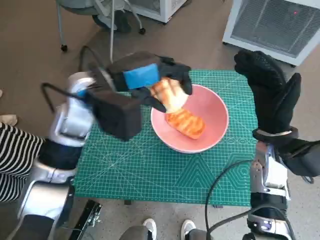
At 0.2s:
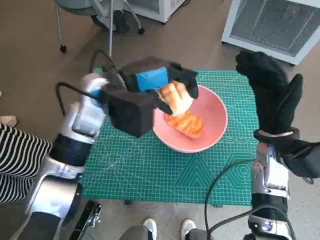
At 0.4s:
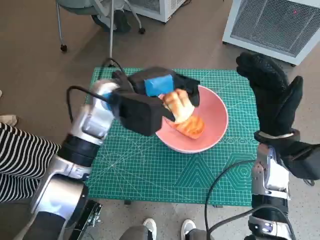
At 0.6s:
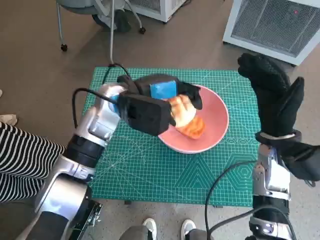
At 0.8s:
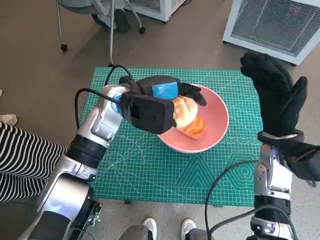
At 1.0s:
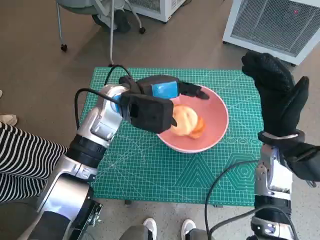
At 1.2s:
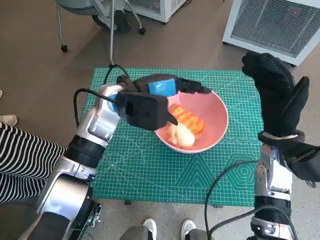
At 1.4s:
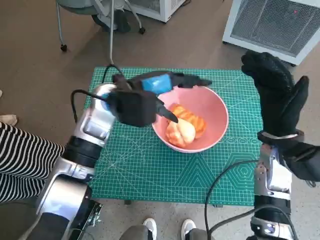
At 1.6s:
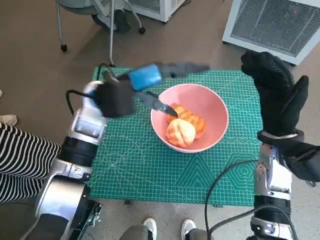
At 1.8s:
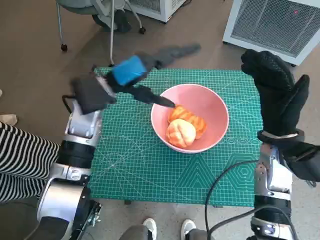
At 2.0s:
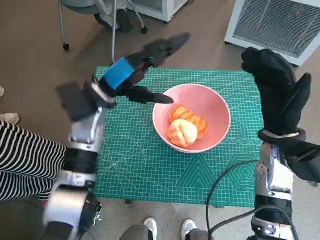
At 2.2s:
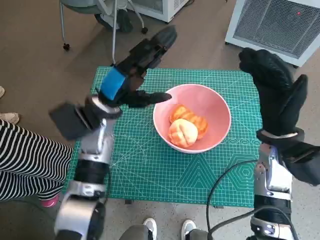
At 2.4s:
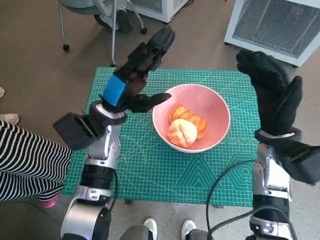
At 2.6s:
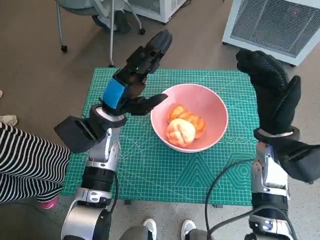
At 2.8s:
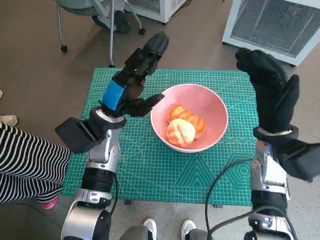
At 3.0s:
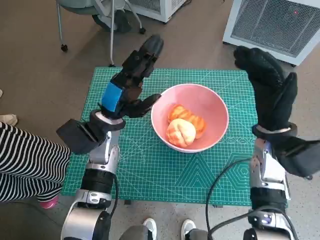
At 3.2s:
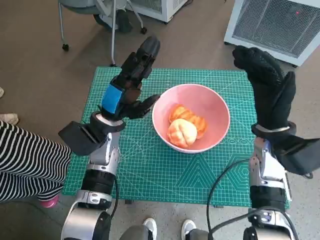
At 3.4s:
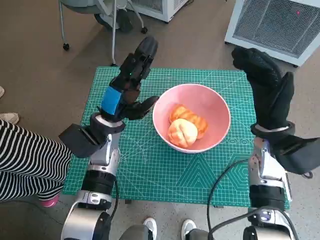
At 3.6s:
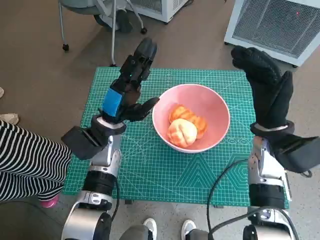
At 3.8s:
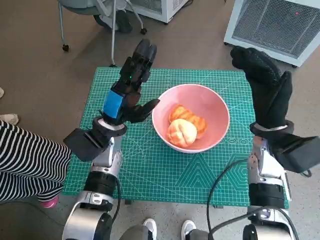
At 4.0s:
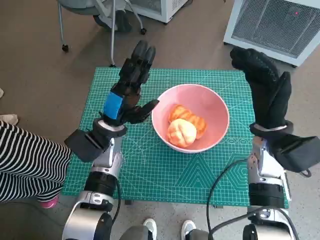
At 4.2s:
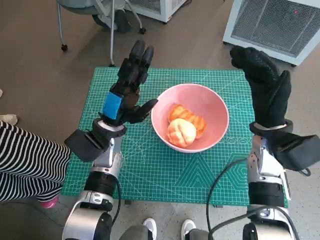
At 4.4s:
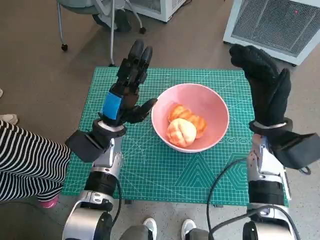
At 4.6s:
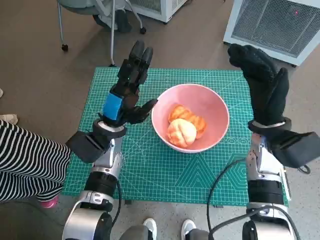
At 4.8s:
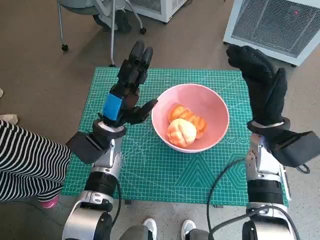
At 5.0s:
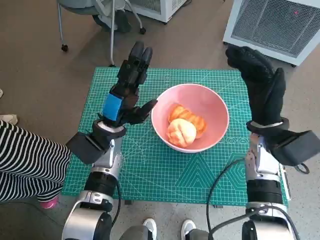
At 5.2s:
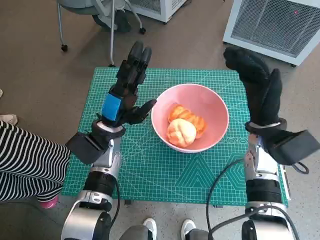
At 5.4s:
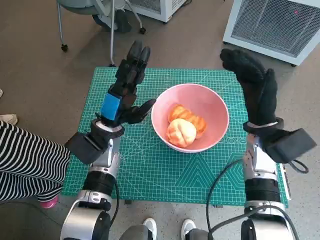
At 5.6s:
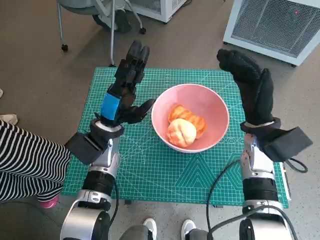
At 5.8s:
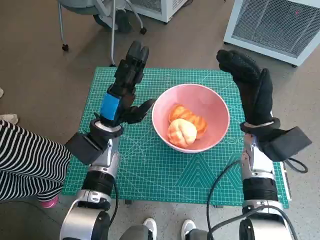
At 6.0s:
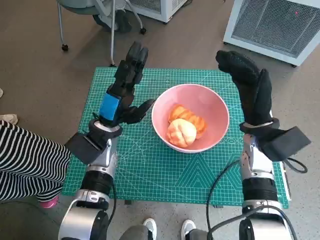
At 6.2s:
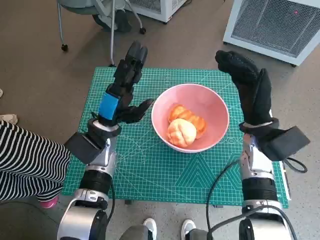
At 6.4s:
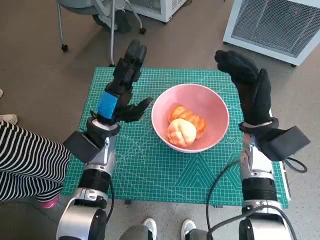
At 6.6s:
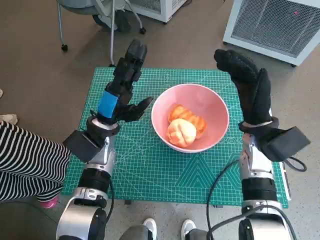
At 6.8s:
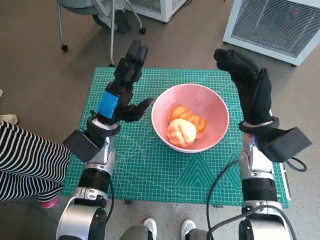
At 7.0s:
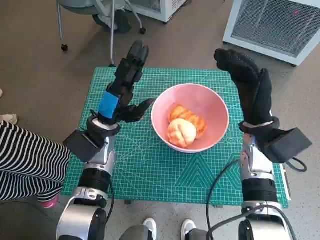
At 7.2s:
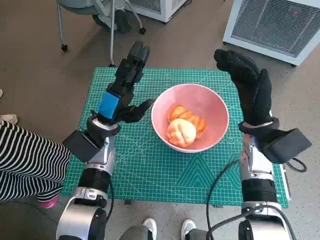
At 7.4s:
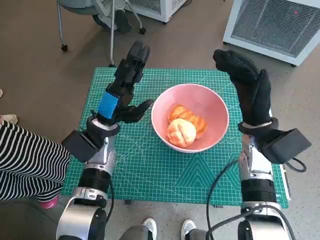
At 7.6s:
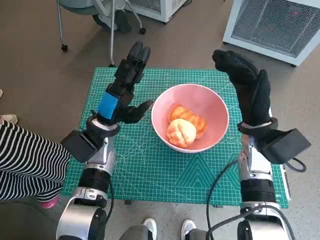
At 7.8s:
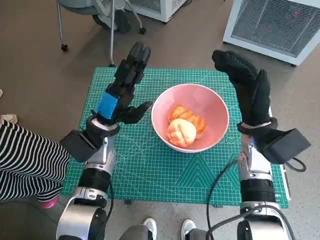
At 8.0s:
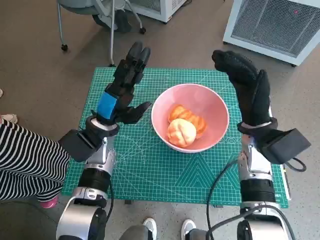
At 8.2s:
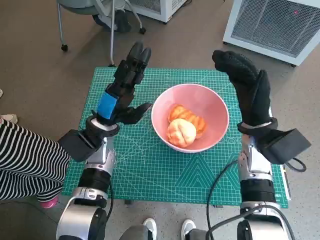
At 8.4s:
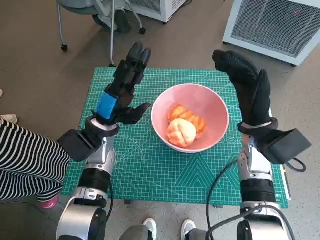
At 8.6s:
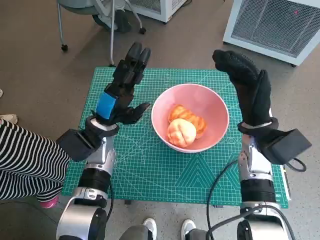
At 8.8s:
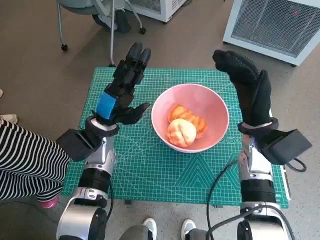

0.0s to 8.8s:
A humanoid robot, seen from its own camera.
Task of the whole recording: Push the bowl into the center of the table and put the bread into the bowl.
0.0s to 1.4s: The left hand moves about 5 cm.
1.4s to 3.0s: The left hand travels downward by approximately 5 cm.
3.0s to 5.8s: The hands make only small movements.
5.8s to 7.4s: Both hands stay put.
7.4s to 8.8s: The two hands keep their place.

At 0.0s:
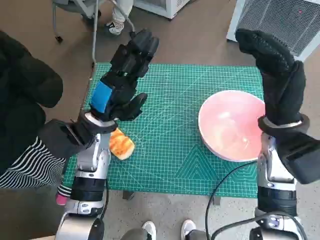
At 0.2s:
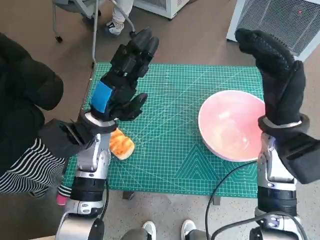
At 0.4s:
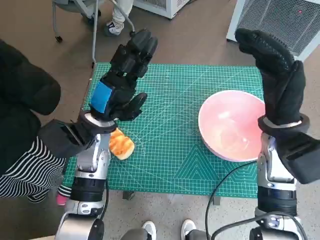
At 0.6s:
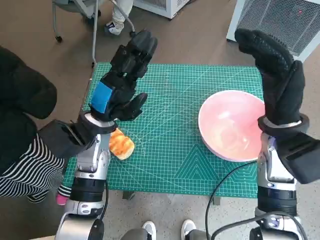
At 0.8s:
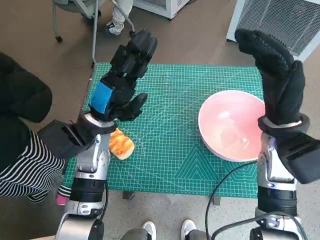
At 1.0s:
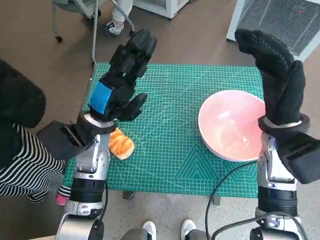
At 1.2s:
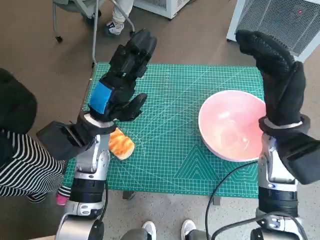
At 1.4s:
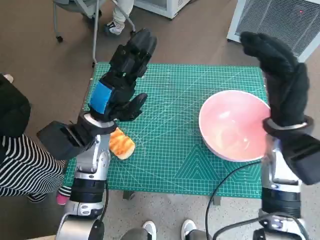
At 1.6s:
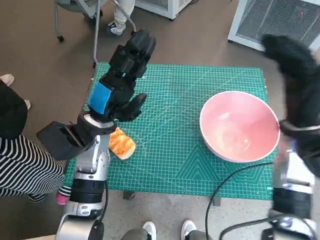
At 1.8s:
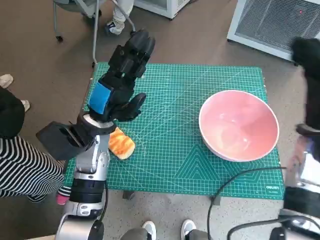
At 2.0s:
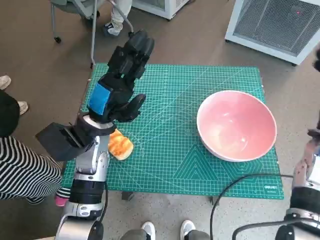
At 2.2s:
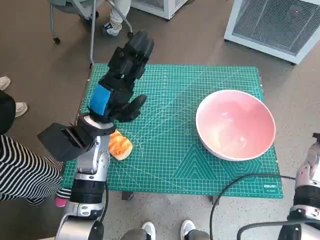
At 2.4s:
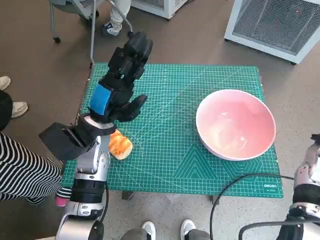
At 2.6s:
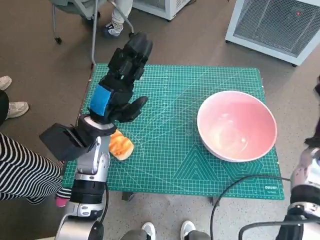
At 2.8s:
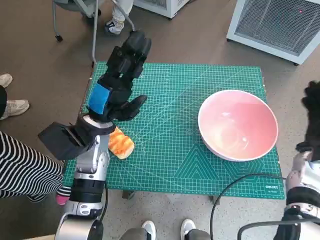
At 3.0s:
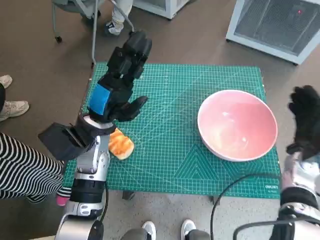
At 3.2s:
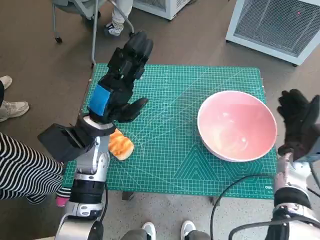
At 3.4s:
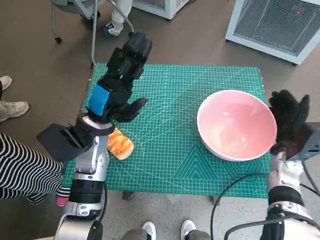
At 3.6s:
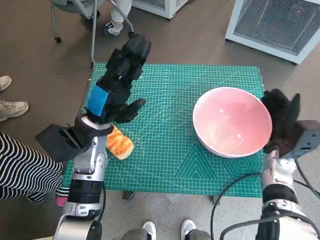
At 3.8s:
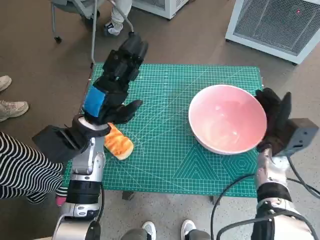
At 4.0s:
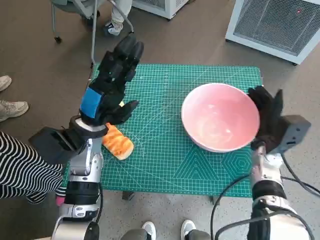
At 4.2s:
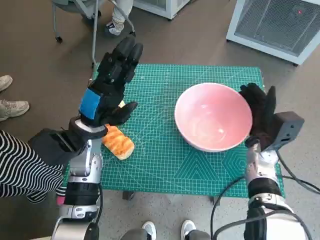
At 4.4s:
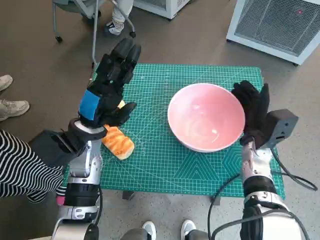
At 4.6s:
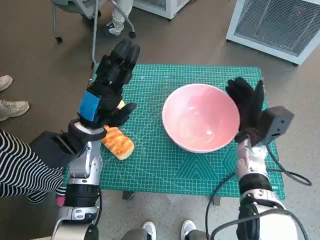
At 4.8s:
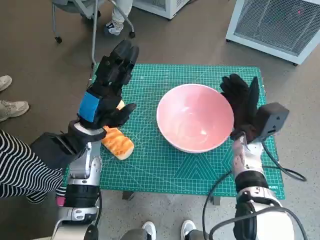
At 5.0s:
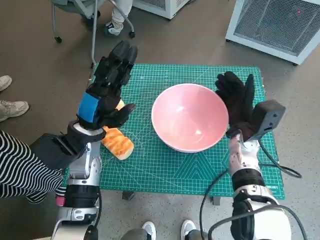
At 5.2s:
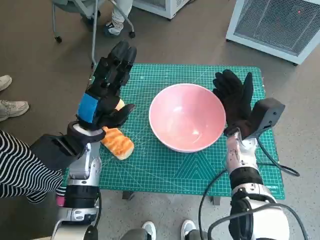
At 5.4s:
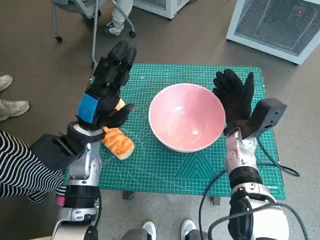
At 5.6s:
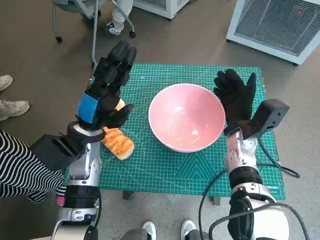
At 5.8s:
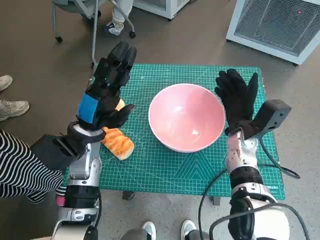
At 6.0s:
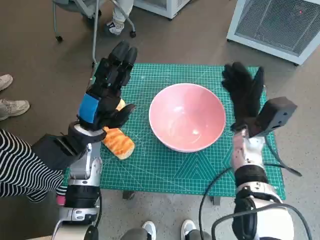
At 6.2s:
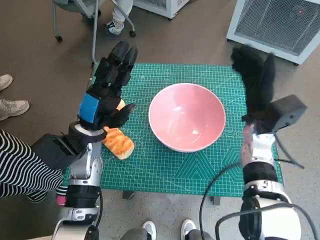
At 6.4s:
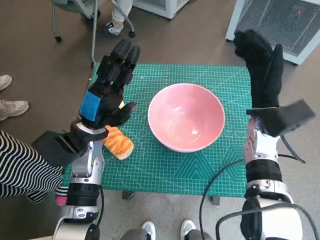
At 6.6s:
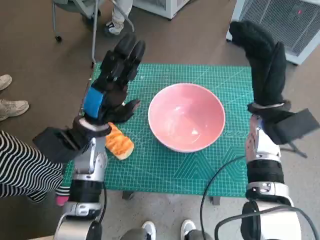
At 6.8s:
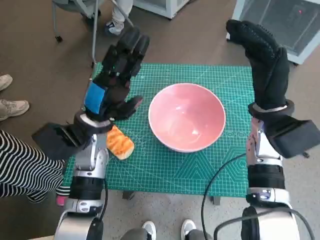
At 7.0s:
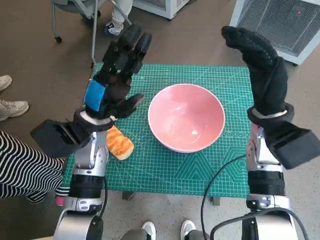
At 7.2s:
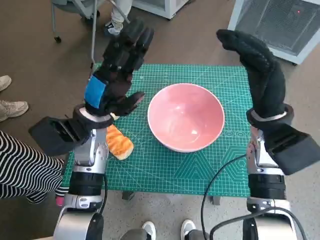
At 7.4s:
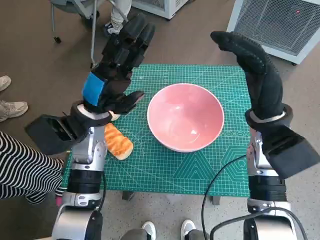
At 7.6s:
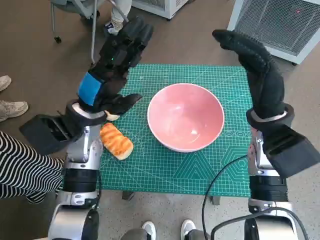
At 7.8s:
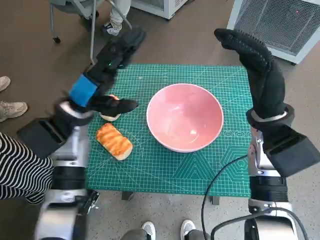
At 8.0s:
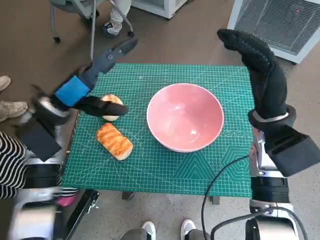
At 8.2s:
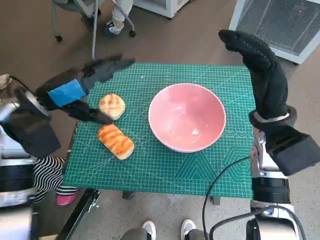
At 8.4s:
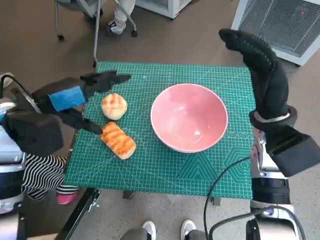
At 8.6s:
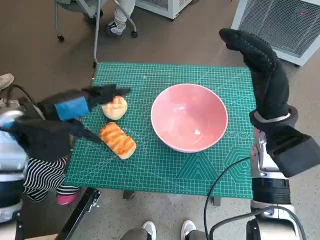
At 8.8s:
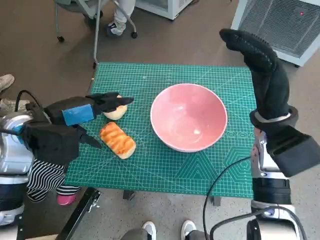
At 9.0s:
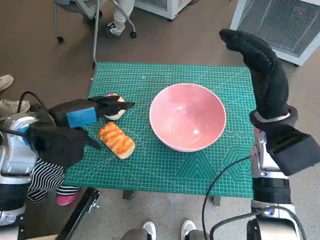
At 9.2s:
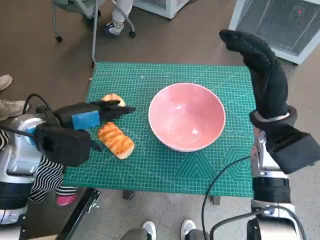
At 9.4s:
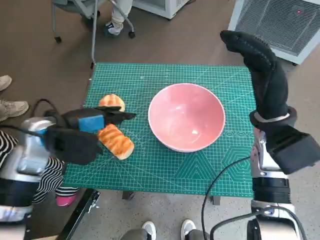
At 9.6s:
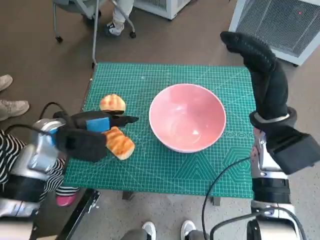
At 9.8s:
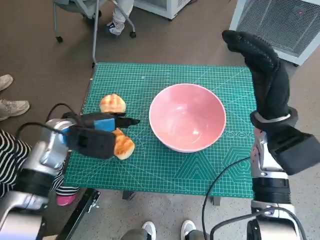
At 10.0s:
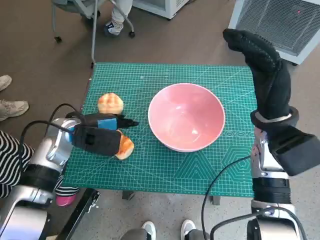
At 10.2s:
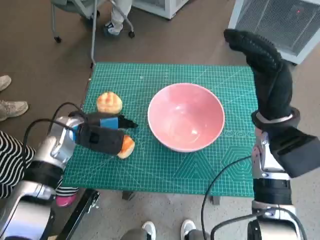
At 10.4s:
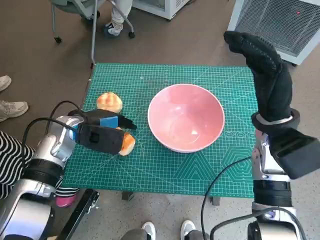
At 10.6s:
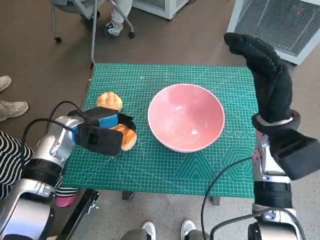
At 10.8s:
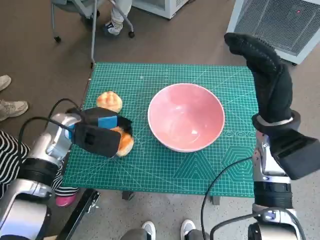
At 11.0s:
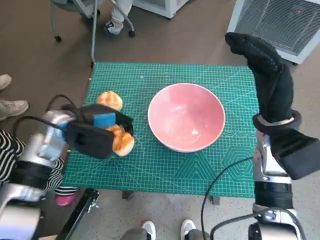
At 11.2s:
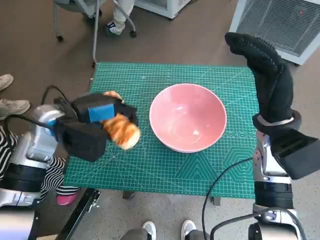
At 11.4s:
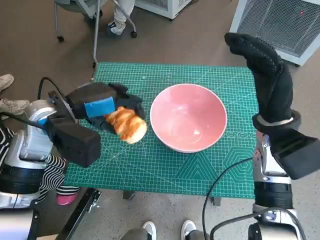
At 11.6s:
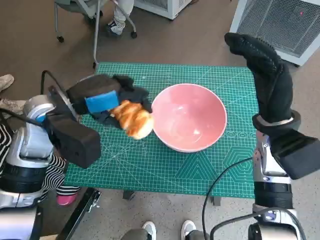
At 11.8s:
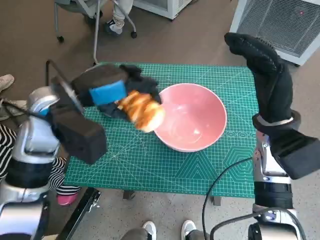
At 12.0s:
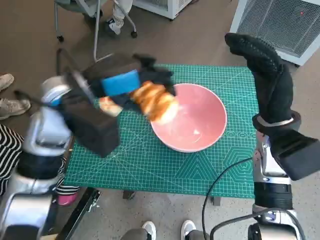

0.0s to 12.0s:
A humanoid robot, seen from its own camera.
Task of the whole recording: Push the bowl into the center of the table and put the bread into the bowl.
Step, 0.0s to 5.8s: Move the pink bowl to the center of table with right hand.
Step, 6.0s to 10.6s: Grasp the long bread with left hand.
1.6s to 3.0s: The right hand moves downward and to the right, roughly 15 cm.
3.0s to 4.4s: The right hand shifts about 10 cm to the left.
6.0s to 7.6s: The right hand moves upward, roughly 10 cm.
7.6s to 9.0s: The left hand goes roughly 5 cm to the left.
9.0s to 10.4s: The left hand moves downward, about 10 cm.
10.4s to 12.0s: The left hand is displaced upward and to the right by about 15 cm.

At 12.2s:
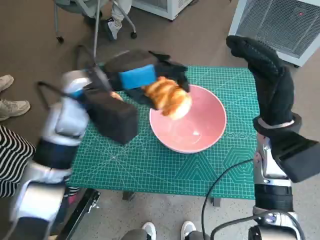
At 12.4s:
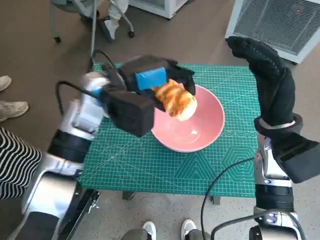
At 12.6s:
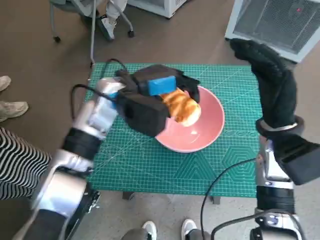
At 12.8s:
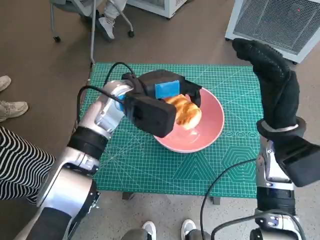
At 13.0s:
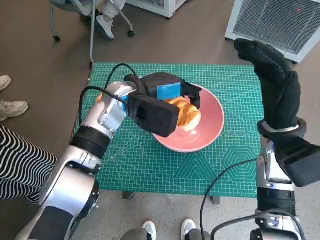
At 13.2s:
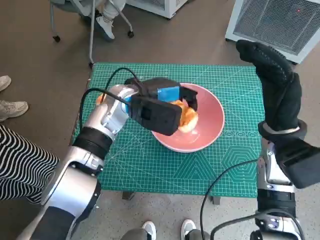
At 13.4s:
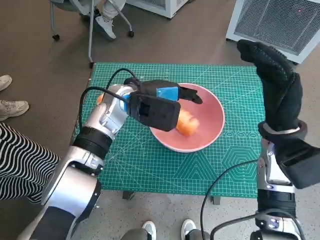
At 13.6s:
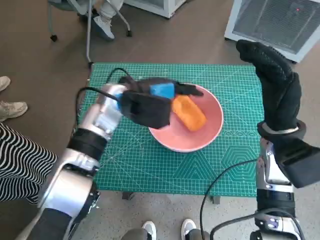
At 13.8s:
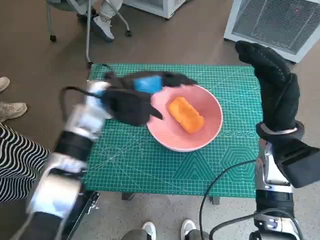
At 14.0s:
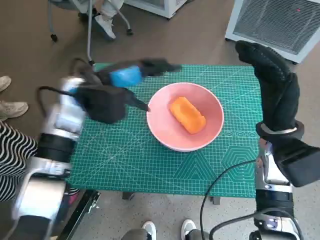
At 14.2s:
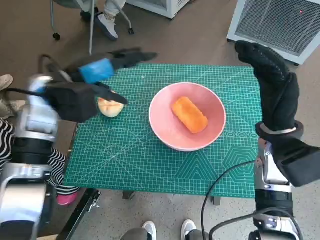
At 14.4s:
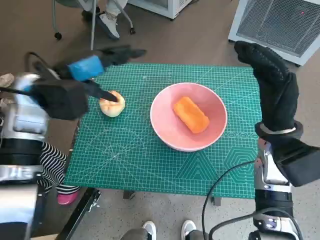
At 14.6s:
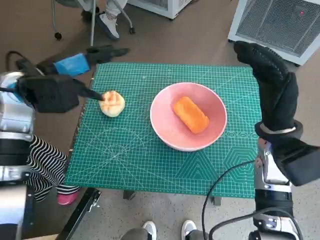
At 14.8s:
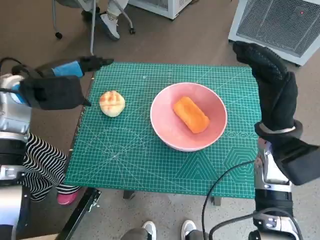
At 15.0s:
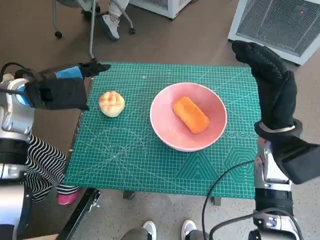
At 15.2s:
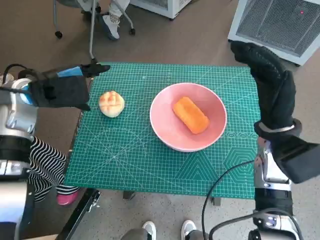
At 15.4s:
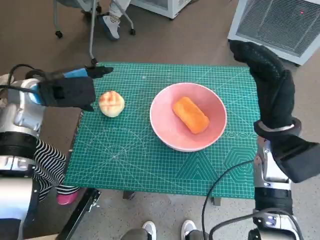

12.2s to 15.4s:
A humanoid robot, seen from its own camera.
Task of the whole recording: Push the bowl into the center of the table and put the bread into the bowl.
Step, 12.2s to 13.8s: Place the long bread in pink bowl with left hand.
12.2s to 13.8s: The left hand travels downward by some 5 cm.
13.8s to 15.4s: The left hand shifts some 15 cm to the left.
